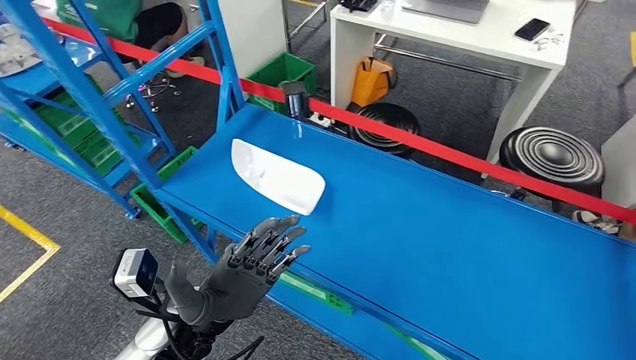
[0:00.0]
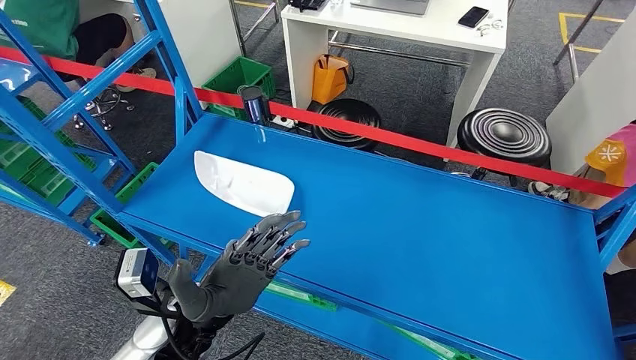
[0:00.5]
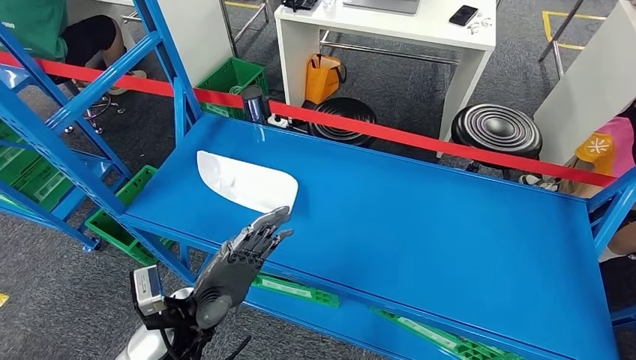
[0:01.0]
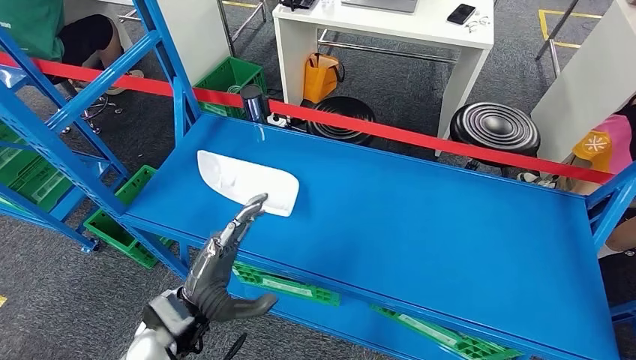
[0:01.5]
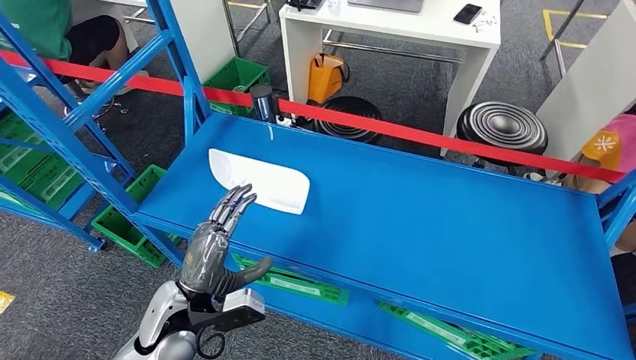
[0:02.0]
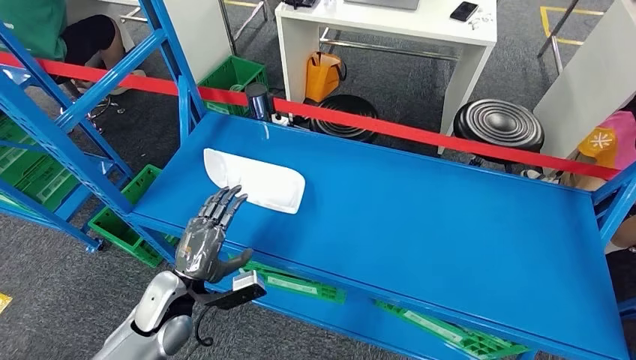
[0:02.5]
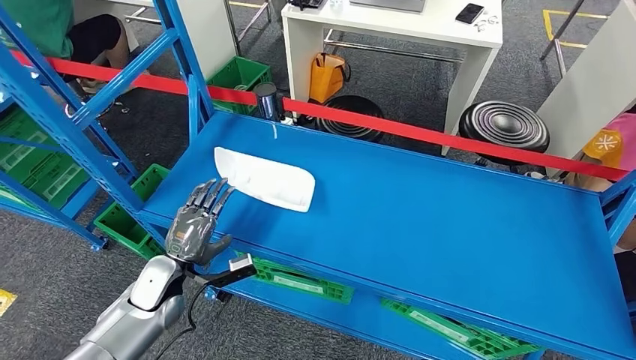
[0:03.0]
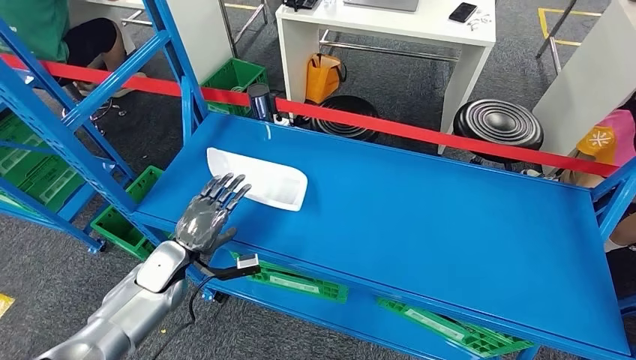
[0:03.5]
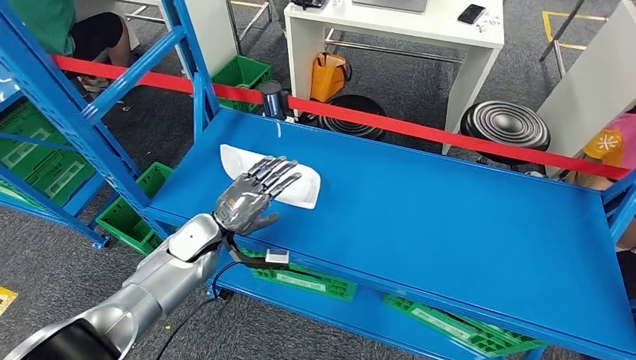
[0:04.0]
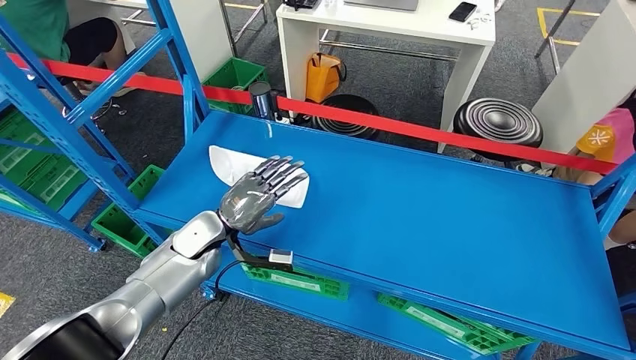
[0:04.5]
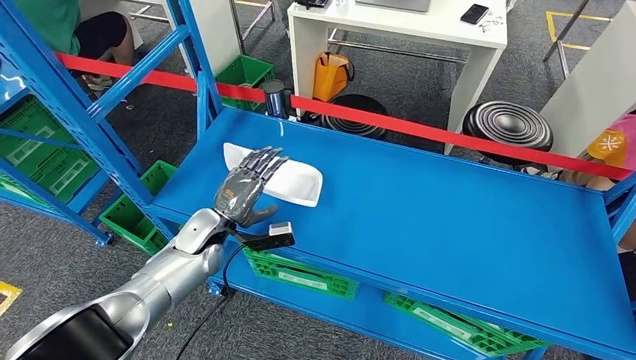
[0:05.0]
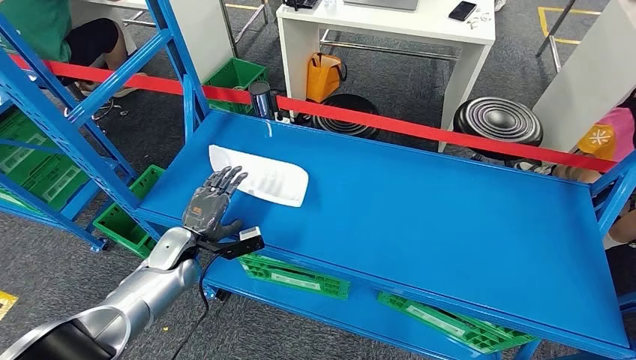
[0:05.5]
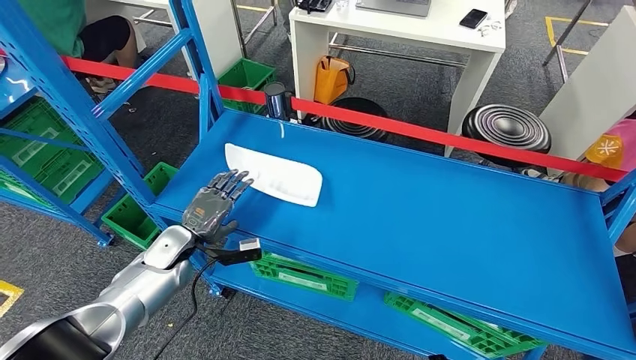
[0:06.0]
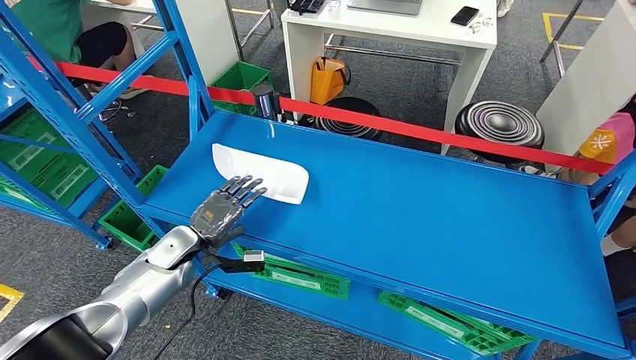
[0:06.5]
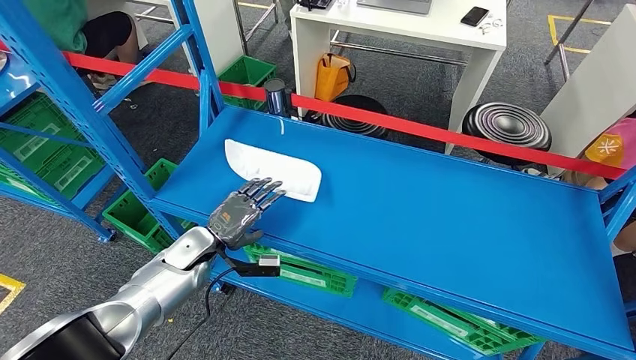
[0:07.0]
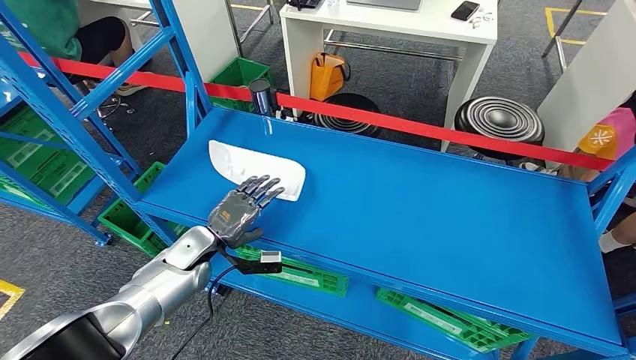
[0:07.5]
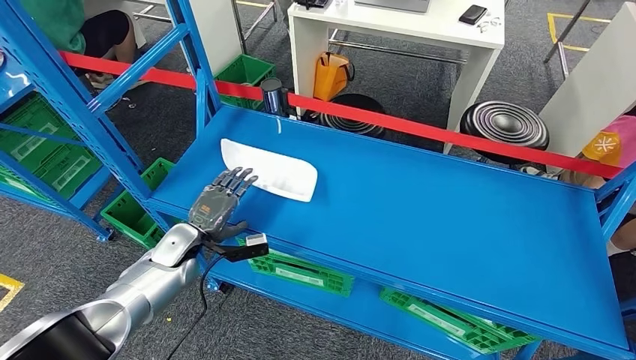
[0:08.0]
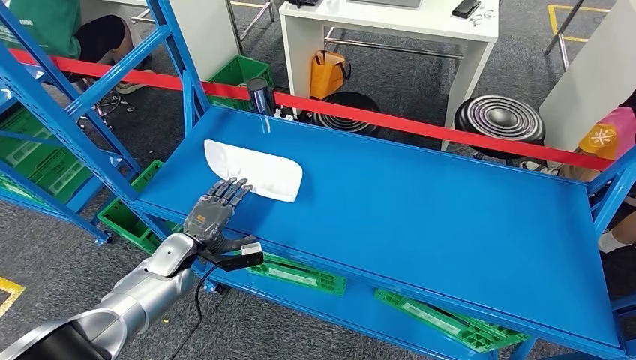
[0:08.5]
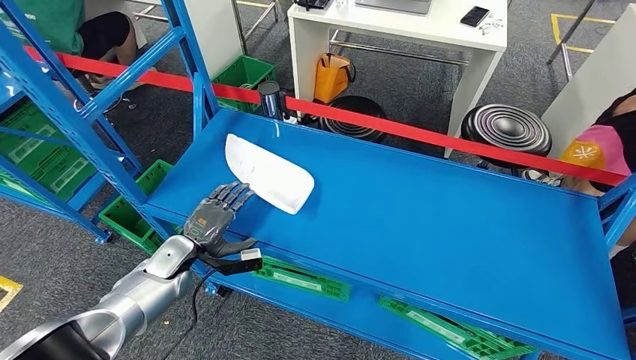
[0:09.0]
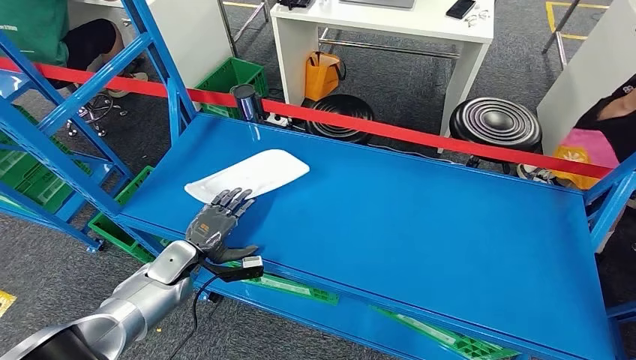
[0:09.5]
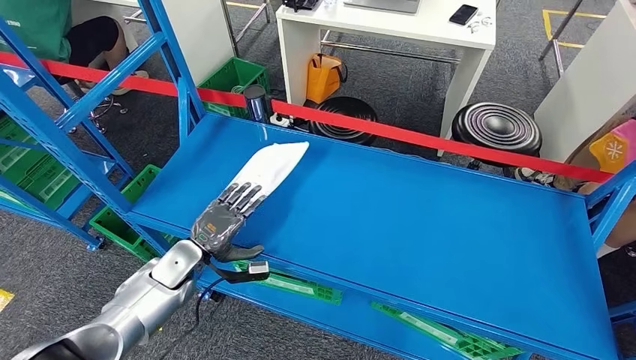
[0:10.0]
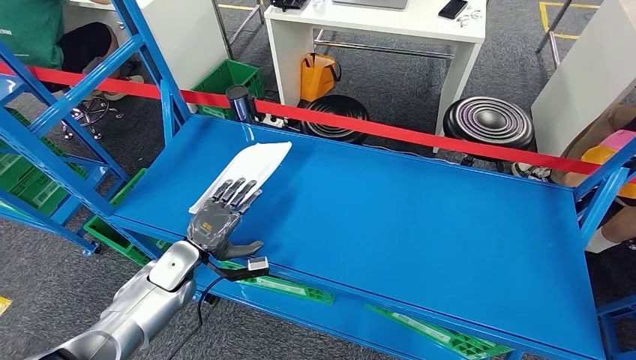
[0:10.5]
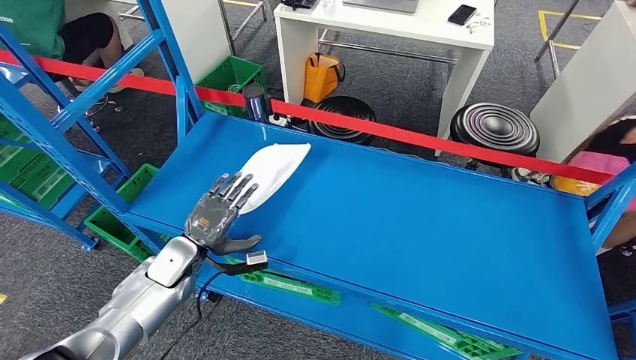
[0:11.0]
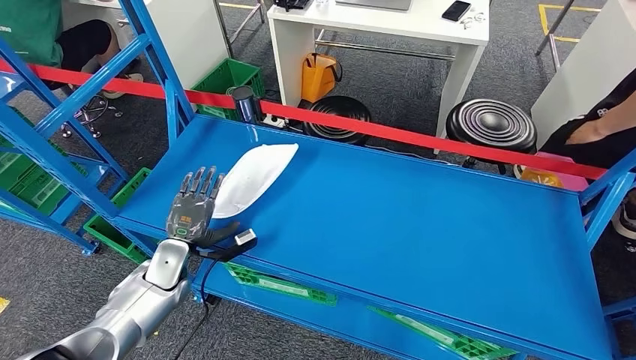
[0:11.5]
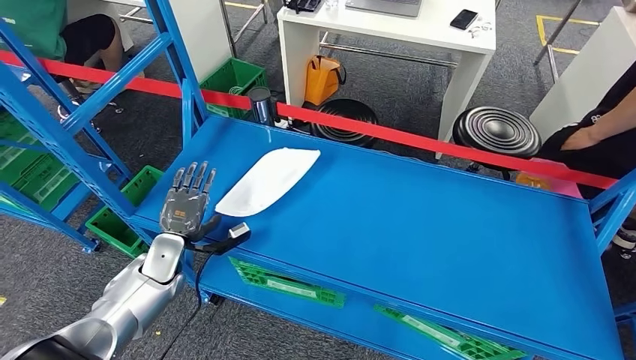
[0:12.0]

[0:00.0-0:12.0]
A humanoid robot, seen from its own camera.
0:06.0 to 0:08.0: The right hand ends up approximately 5 cm from where it was.

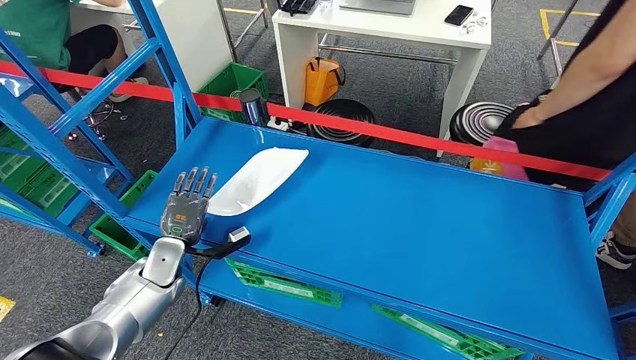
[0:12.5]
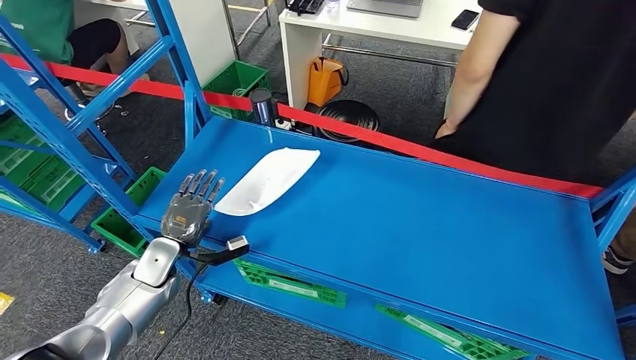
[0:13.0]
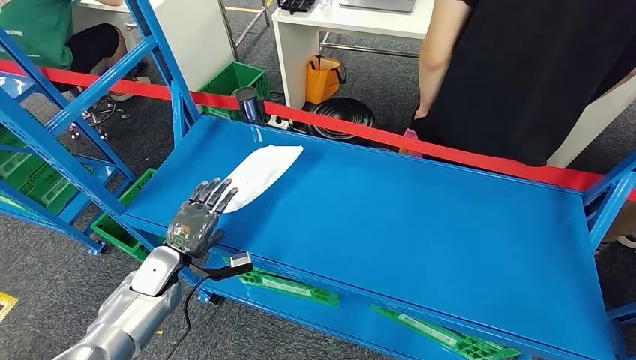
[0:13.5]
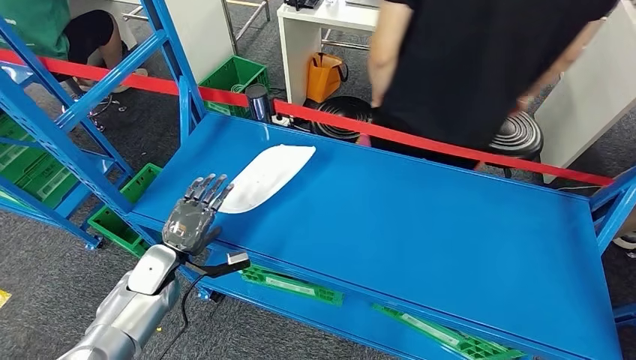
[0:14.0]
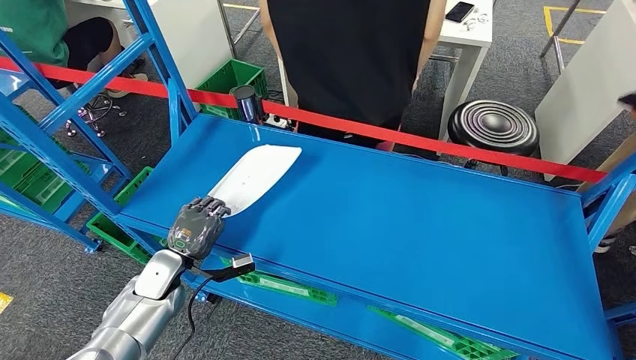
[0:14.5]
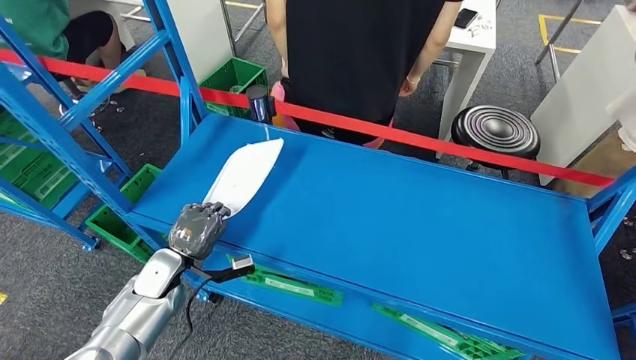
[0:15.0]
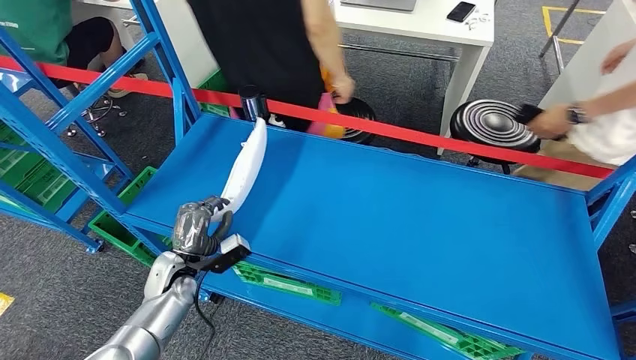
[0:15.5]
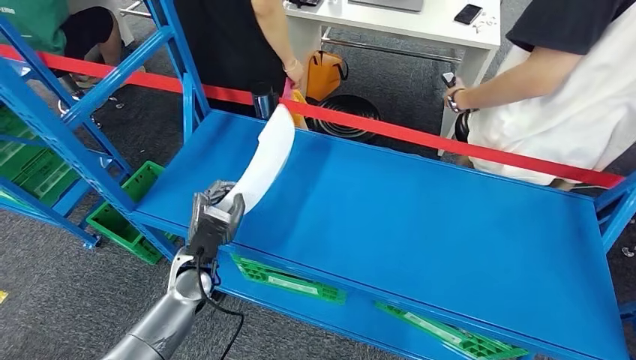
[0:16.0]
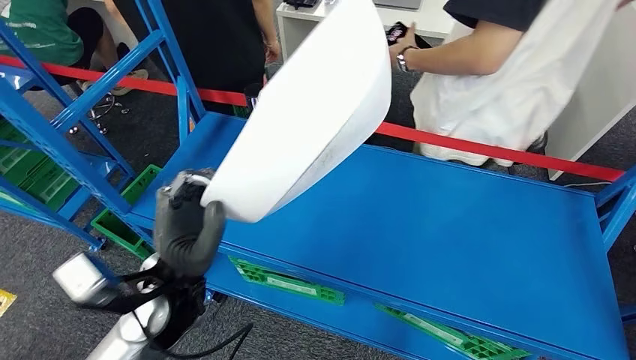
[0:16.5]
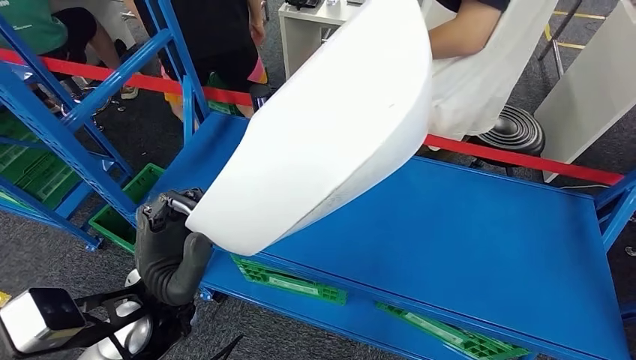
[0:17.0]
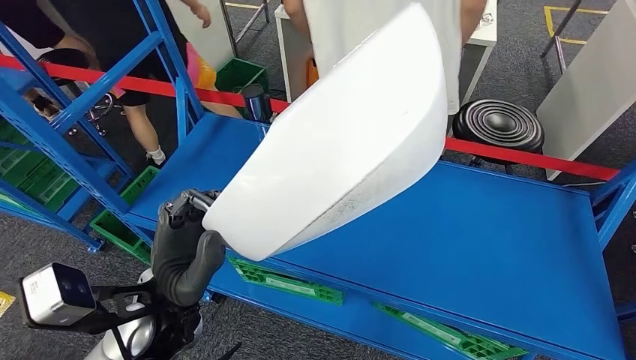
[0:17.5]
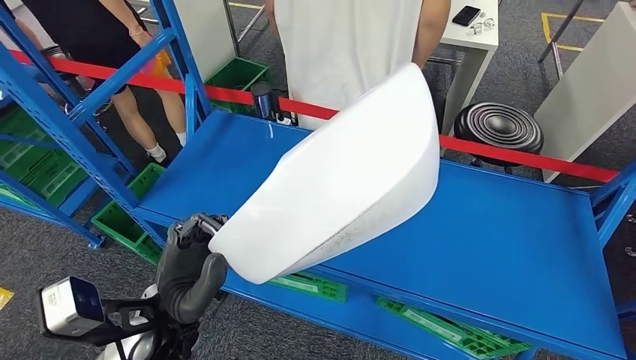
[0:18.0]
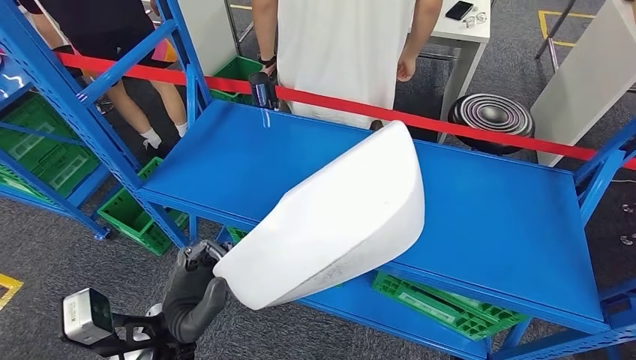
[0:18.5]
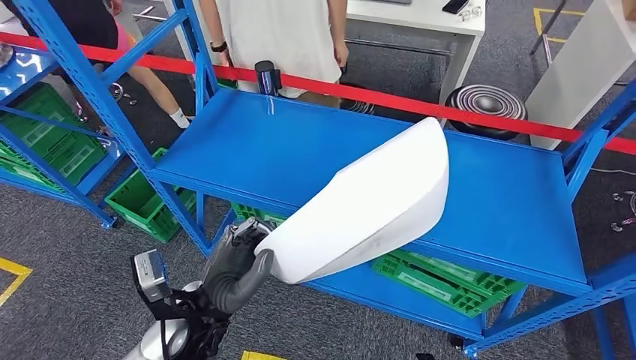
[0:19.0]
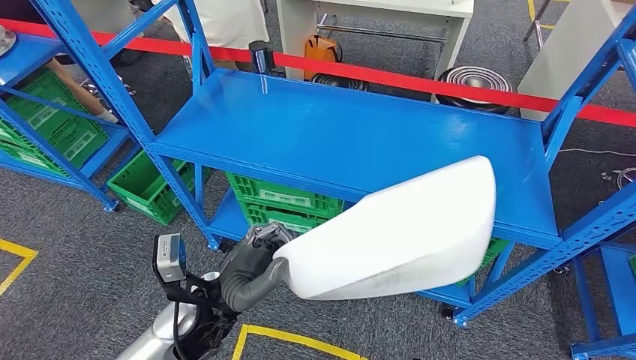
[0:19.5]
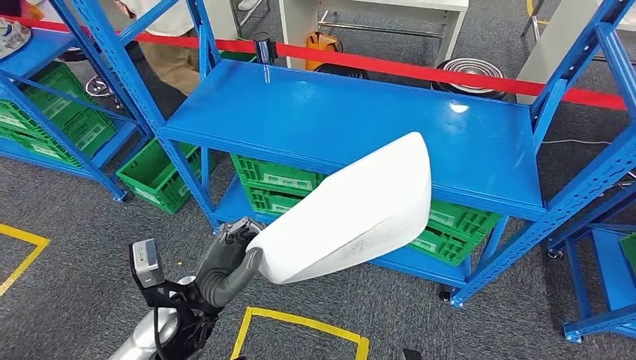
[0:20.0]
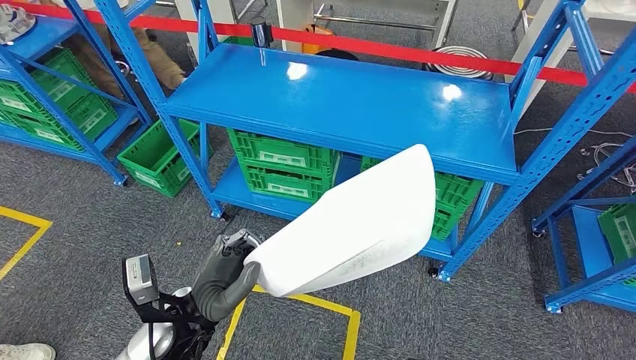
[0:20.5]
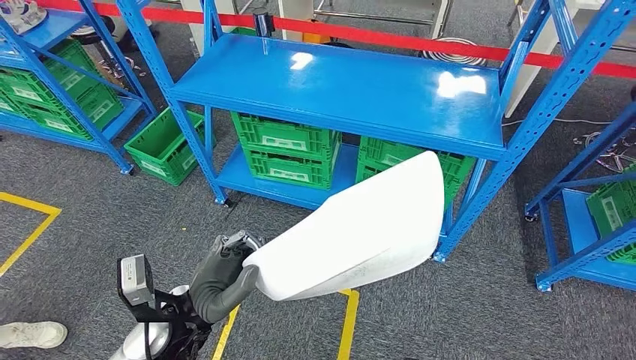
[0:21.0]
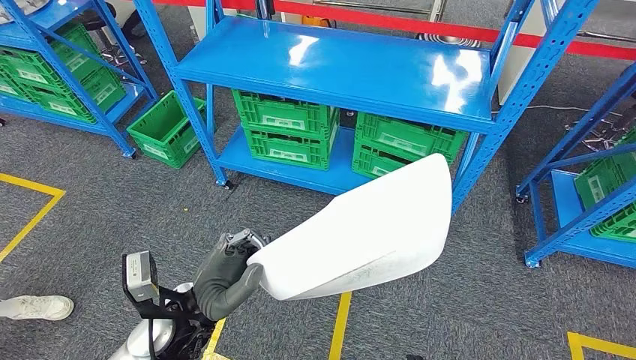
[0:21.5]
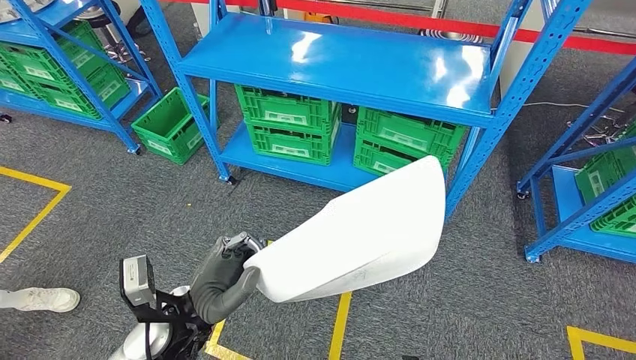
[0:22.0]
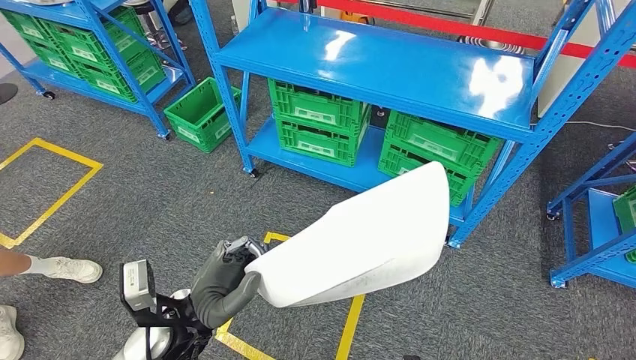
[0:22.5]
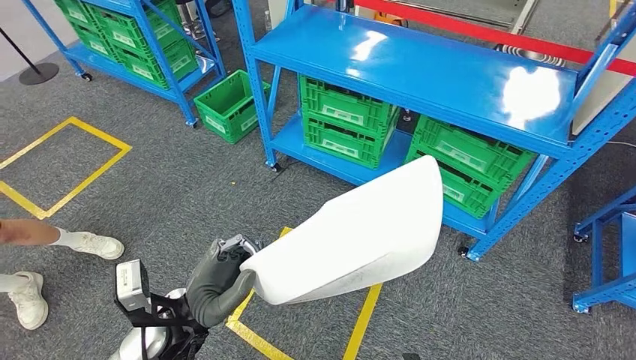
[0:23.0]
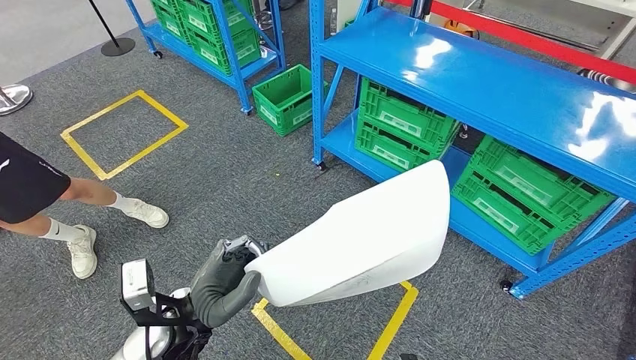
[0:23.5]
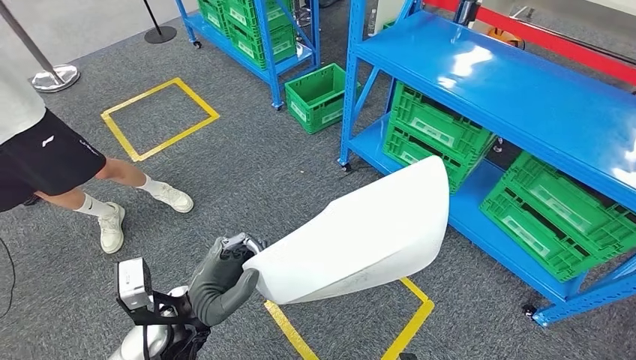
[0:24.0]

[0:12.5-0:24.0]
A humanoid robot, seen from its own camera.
Step, 0:12.5 to 0:17.0: Pick up the small component from the shelf.
